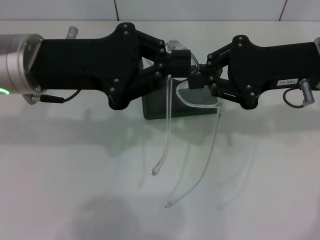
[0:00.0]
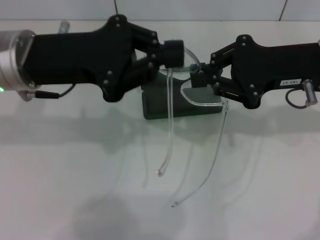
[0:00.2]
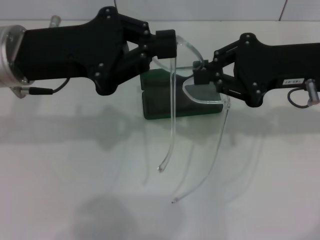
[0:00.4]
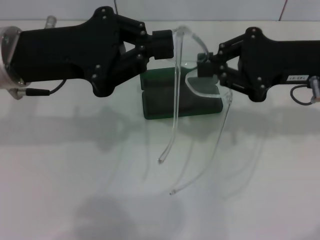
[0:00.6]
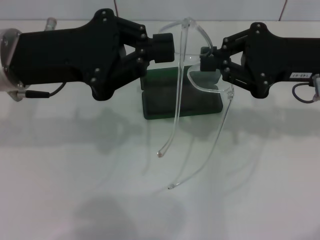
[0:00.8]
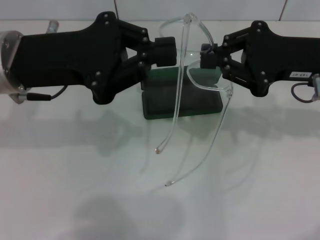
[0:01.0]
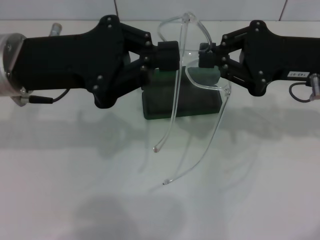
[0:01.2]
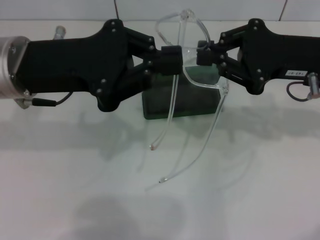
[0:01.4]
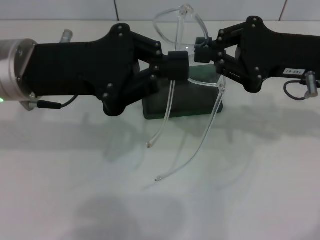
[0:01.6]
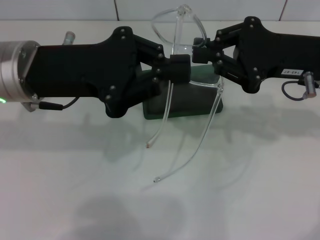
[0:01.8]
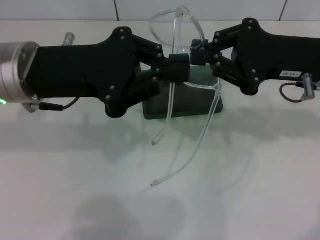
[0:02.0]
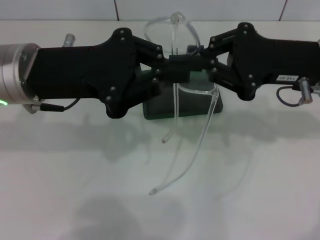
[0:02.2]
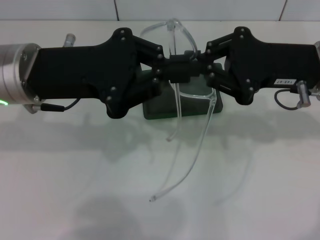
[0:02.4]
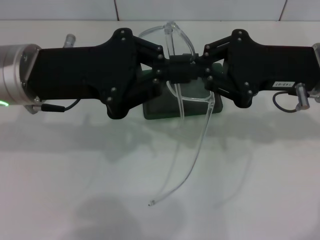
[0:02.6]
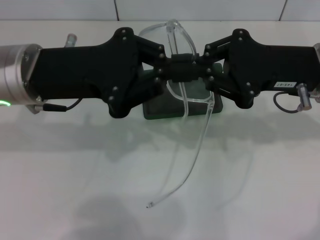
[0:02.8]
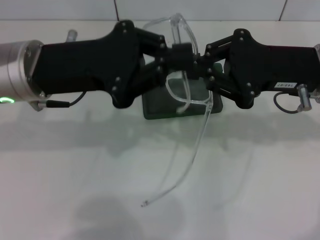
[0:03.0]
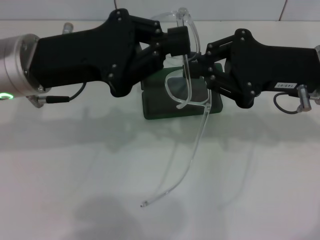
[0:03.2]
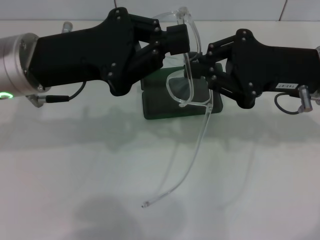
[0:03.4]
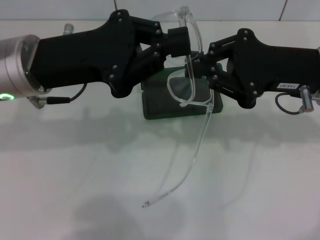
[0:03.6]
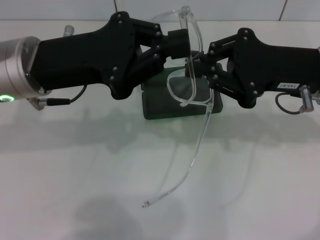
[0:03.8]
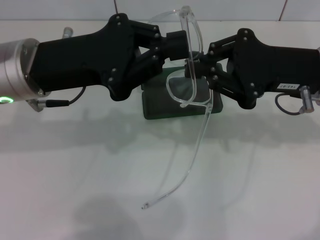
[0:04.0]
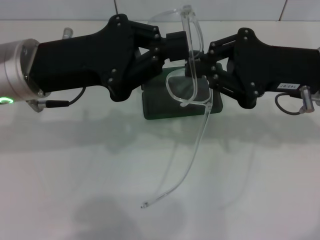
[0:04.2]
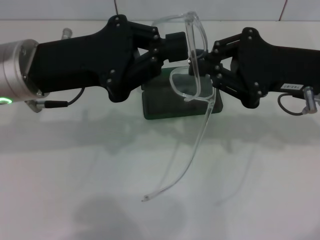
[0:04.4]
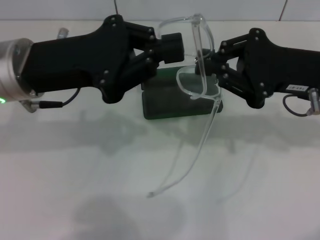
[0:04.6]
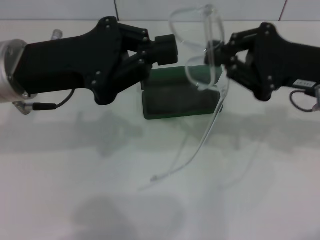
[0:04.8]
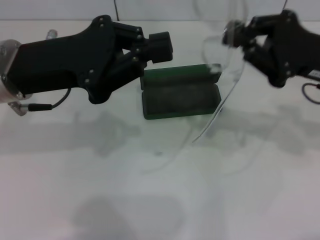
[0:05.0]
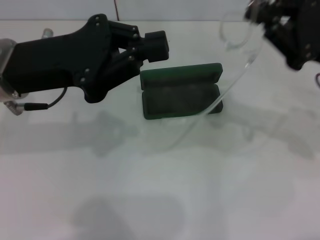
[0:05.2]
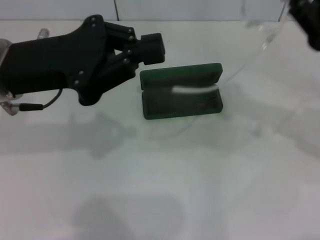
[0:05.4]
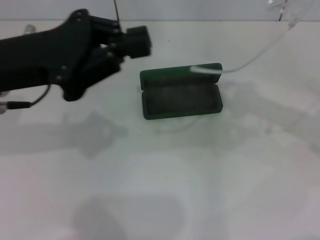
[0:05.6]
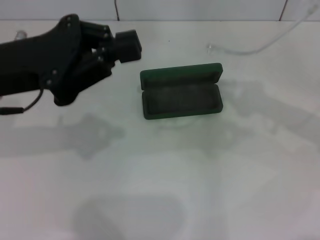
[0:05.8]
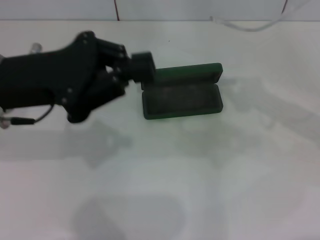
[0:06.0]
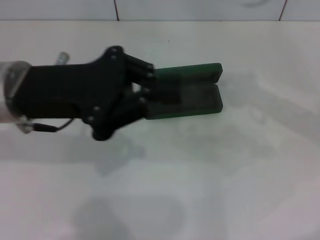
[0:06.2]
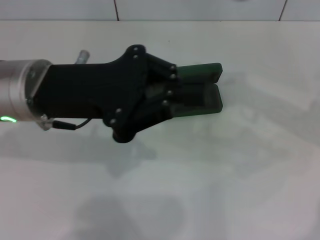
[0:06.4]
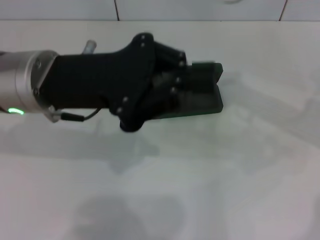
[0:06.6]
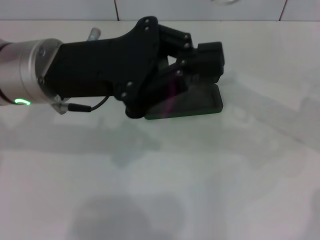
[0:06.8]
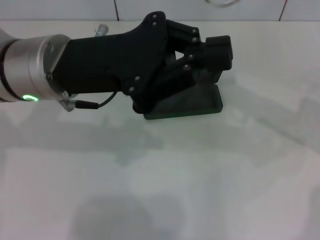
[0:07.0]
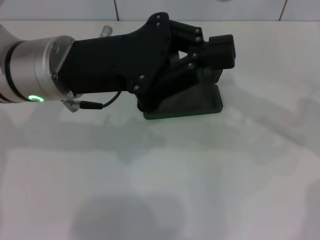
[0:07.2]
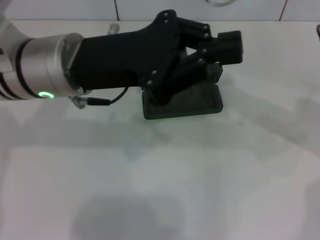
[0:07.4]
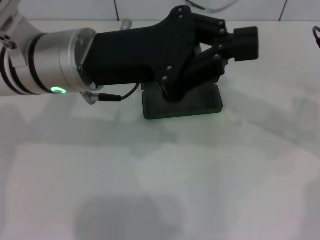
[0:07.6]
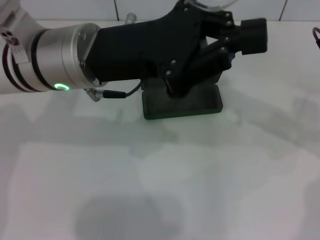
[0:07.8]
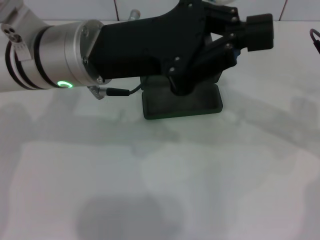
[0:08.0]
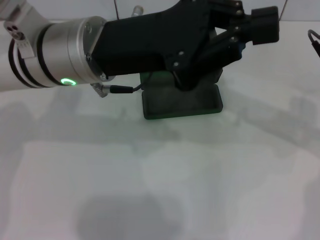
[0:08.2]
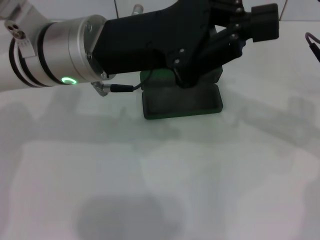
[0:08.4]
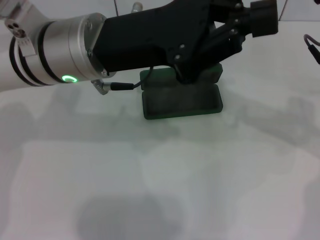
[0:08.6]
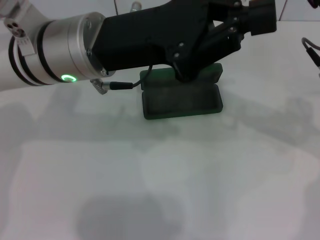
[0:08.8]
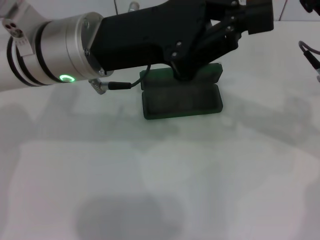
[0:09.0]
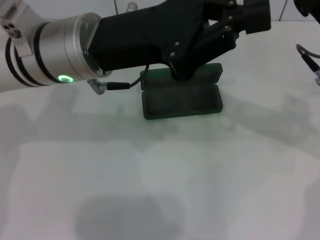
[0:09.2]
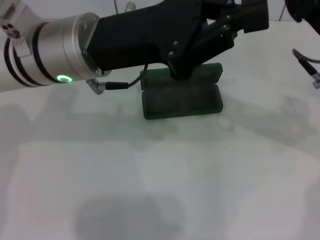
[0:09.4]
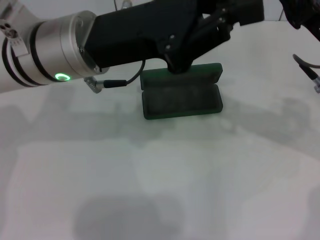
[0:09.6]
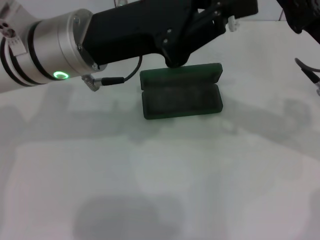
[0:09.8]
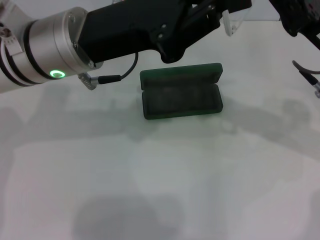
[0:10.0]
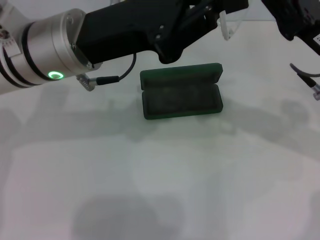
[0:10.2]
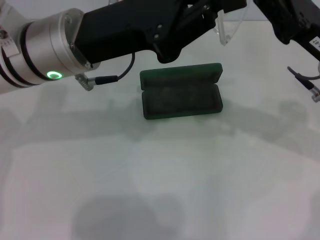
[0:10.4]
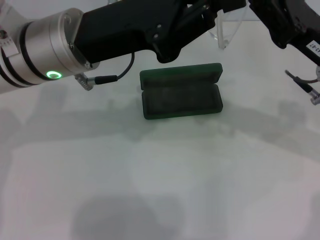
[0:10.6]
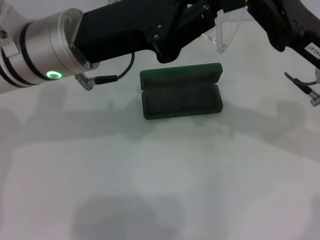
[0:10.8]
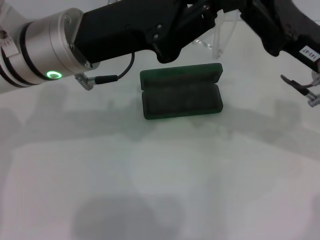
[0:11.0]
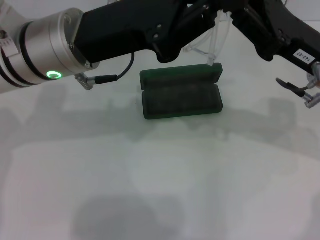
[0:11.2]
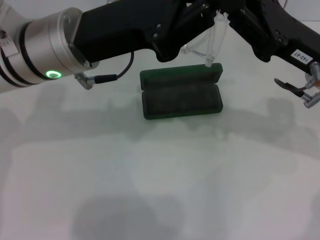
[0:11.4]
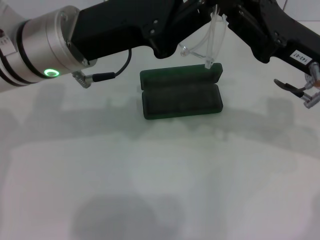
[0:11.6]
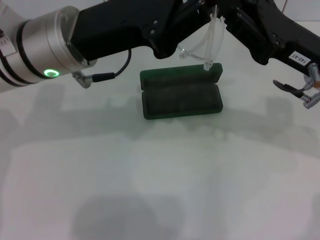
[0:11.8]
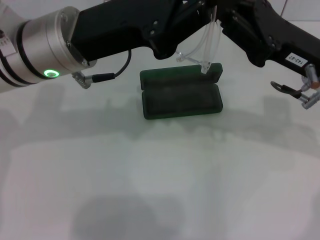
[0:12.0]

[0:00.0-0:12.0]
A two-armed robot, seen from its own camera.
0:00.0 to 0:03.0: The grippers make only small movements.
0:03.0 to 0:04.4: The two grippers keep their place.
0:04.4 to 0:06.0: The right gripper moves to the right, roughly 10 cm.
0:06.0 to 0:07.6: The right gripper heads to the left, covering roughly 5 cm; the left gripper travels to the right by some 10 cm.
0:07.6 to 0:10.4: There are only small adjustments of the grippers.
0:10.4 to 0:12.0: There are only small adjustments of the grippers.

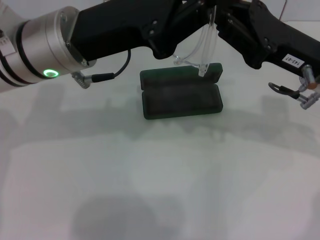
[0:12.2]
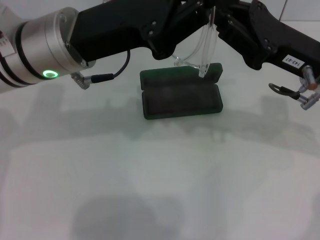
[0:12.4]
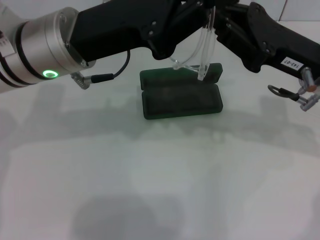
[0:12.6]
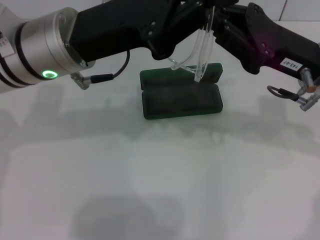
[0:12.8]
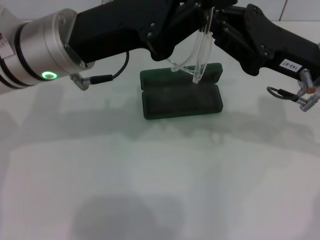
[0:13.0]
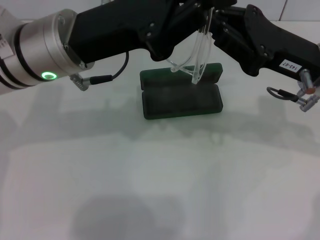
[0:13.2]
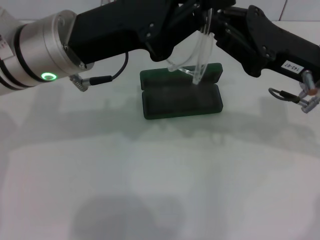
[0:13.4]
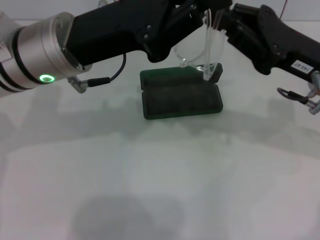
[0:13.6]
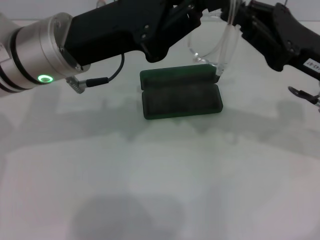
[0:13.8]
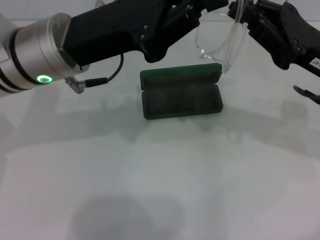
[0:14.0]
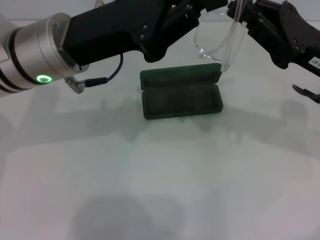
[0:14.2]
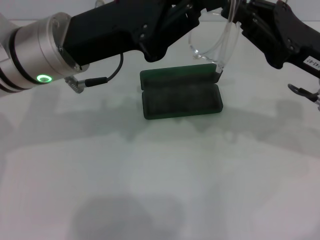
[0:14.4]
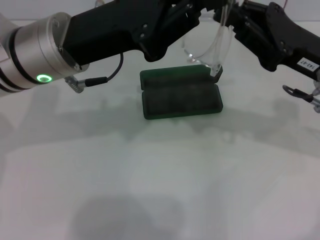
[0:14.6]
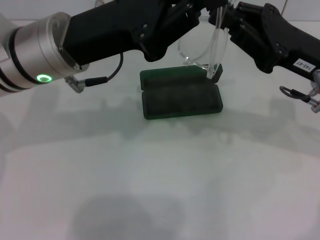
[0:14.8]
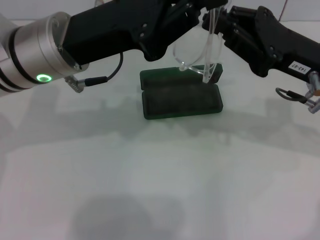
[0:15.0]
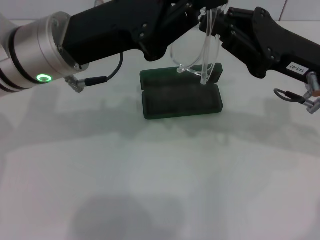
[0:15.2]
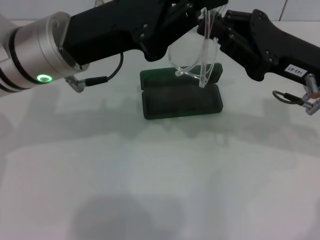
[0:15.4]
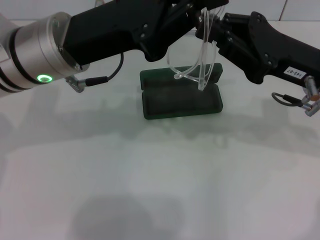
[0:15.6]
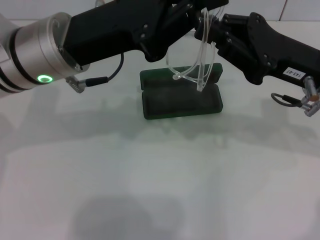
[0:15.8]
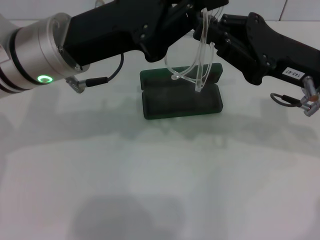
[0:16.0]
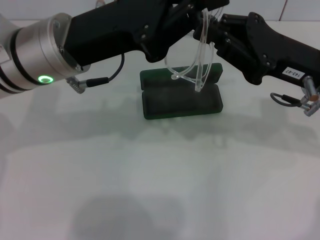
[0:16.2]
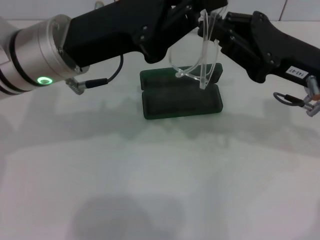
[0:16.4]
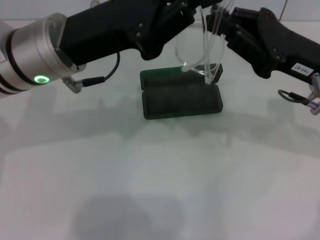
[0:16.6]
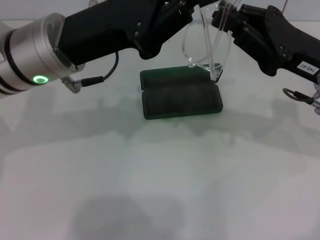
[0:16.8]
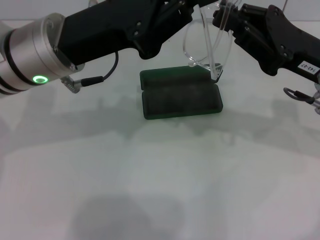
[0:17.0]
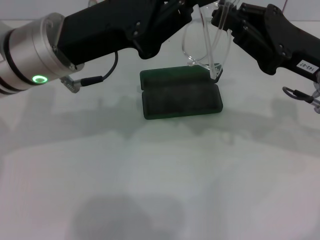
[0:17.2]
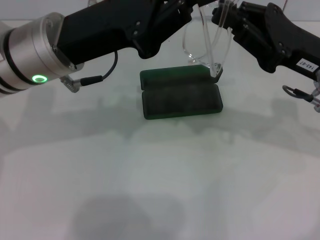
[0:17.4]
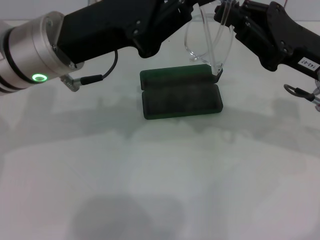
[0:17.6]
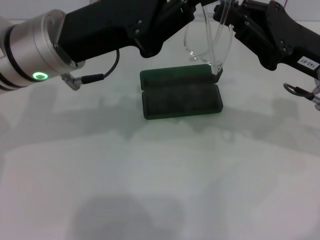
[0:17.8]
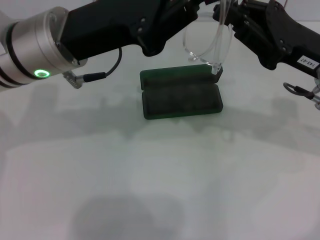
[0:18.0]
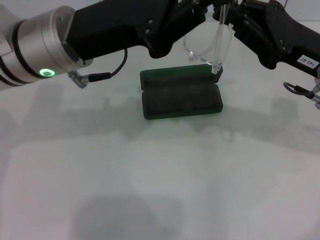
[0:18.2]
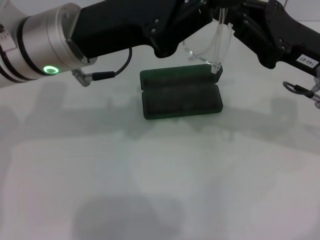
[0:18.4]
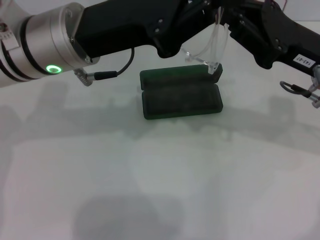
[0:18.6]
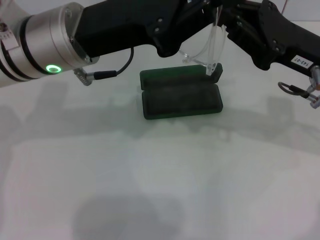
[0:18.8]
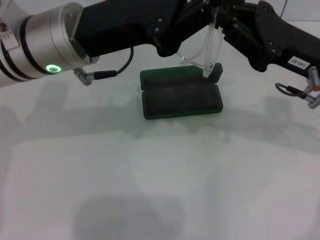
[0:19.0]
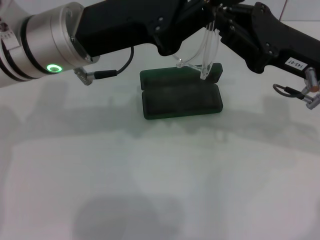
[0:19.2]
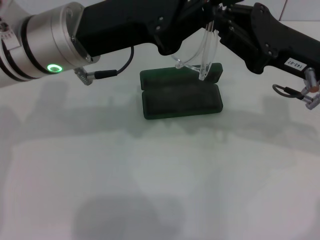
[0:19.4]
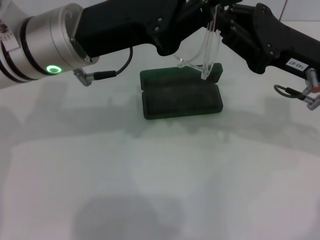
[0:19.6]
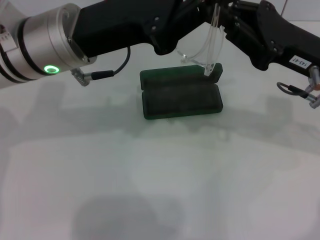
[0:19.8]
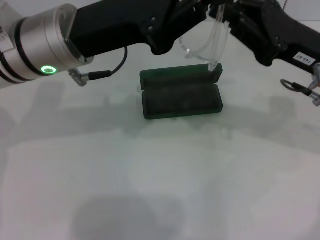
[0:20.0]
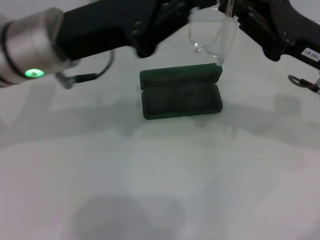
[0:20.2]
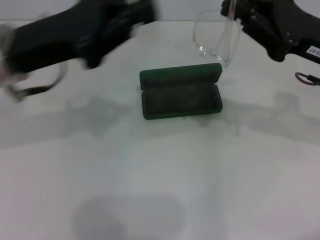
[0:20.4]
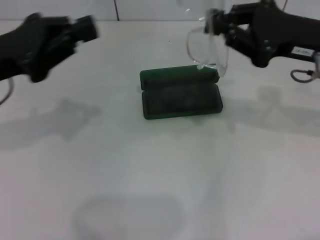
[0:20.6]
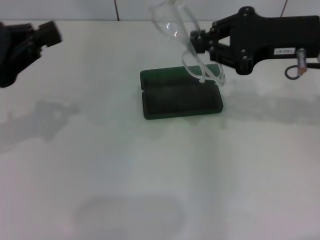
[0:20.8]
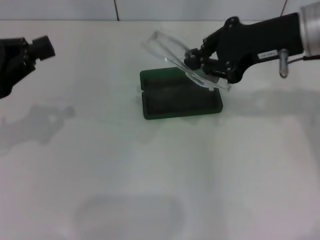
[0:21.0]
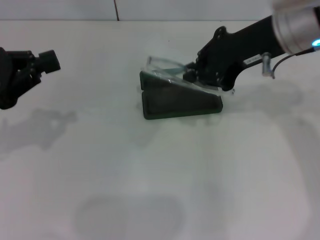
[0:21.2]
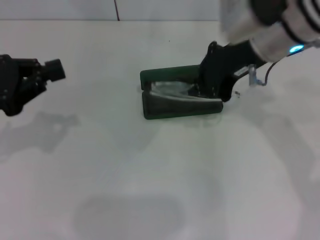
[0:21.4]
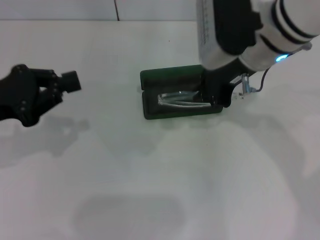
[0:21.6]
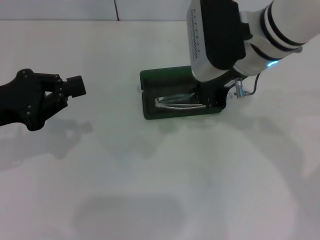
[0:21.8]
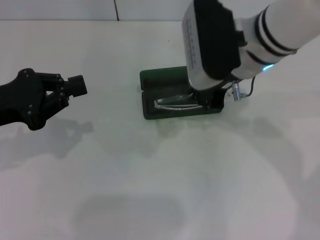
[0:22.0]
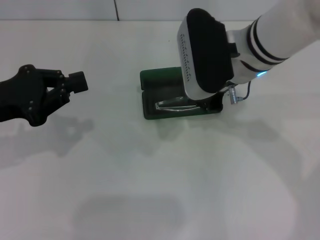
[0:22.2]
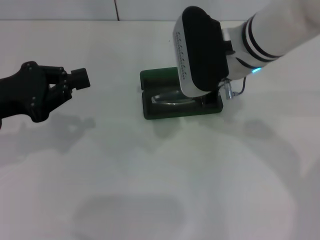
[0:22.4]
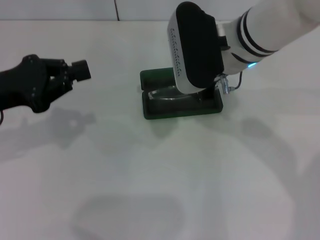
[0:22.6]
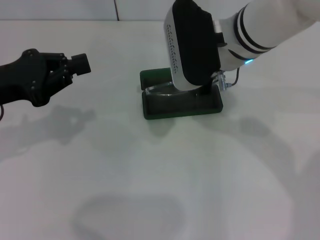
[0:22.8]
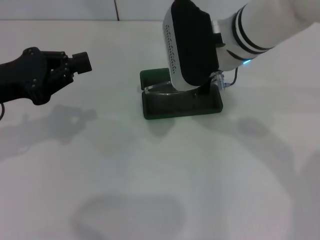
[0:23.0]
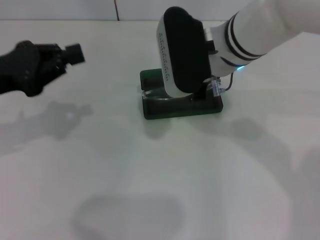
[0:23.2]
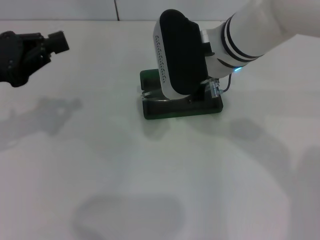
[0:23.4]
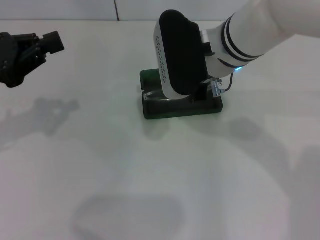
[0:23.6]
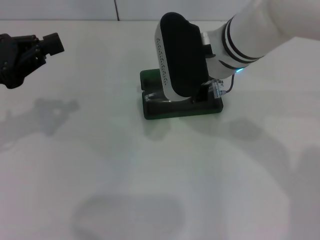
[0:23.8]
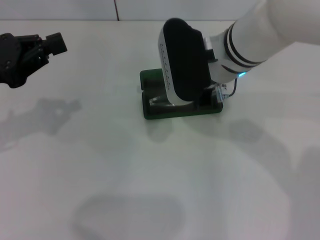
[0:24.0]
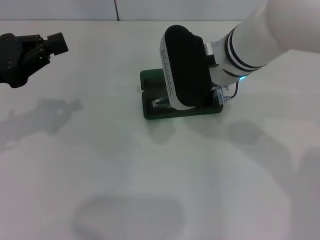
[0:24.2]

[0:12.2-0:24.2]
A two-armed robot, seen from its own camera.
Step, 0:12.2 to 0:20.0: Fold the frame with your left hand.
0:12.2 to 0:15.2: There are only small adjustments of the grippers.
0:15.2 to 0:18.2: Neither gripper changes place.
0:18.2 to 0:19.8: Both grippers stay about where they are.
0:19.8 to 0:21.2: The right gripper moves upward and to the left, approximately 10 cm. Meanwhile the left gripper moves to the left, some 20 cm.
0:21.2 to 0:22.6: The right gripper heads to the left, covering about 10 cm.
0:22.6 to 0:24.2: The grippers stay close to where they were, moving slightly.
